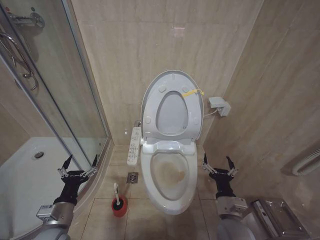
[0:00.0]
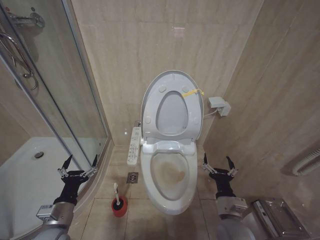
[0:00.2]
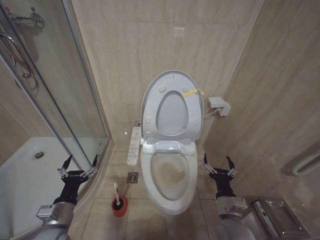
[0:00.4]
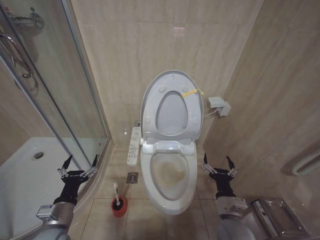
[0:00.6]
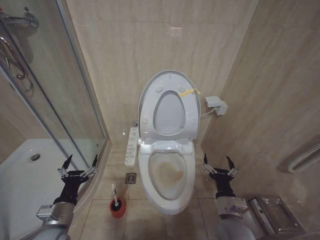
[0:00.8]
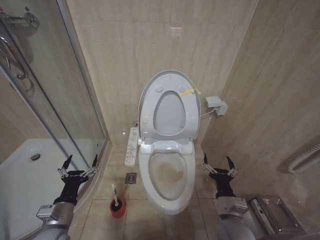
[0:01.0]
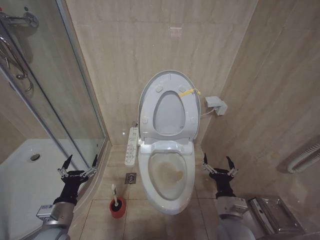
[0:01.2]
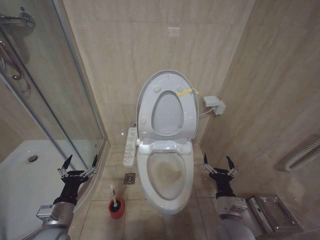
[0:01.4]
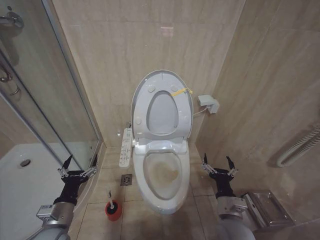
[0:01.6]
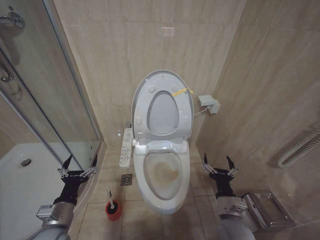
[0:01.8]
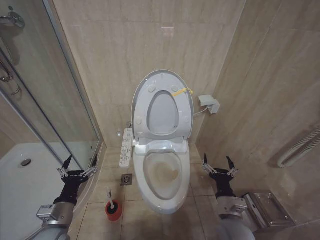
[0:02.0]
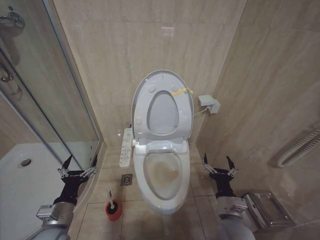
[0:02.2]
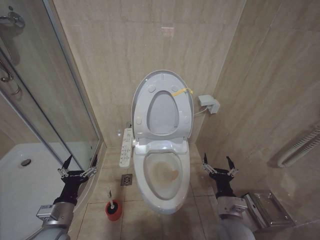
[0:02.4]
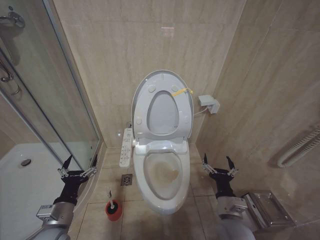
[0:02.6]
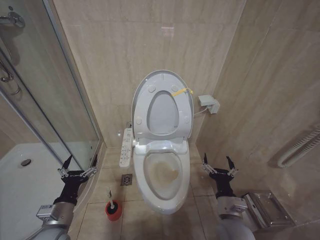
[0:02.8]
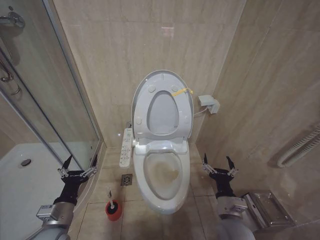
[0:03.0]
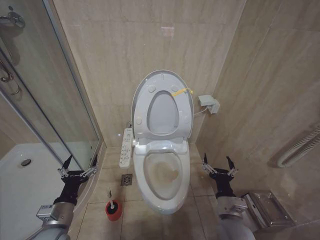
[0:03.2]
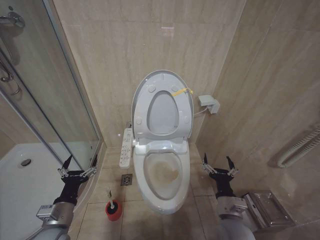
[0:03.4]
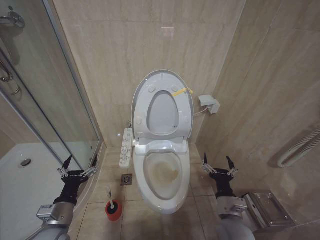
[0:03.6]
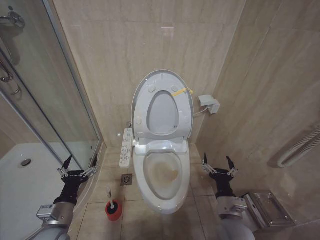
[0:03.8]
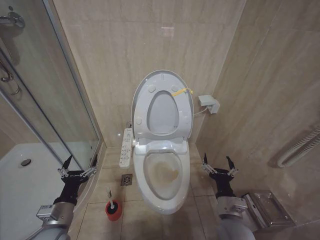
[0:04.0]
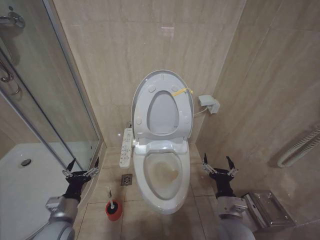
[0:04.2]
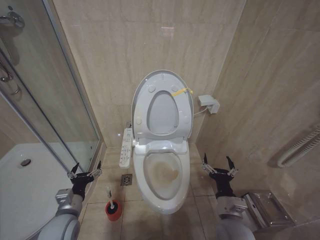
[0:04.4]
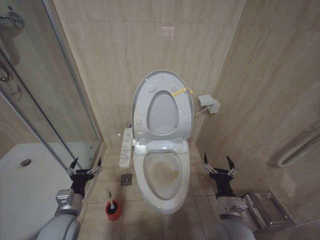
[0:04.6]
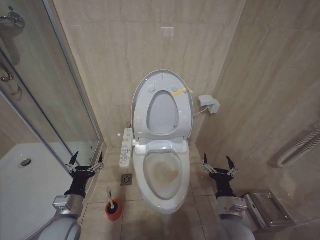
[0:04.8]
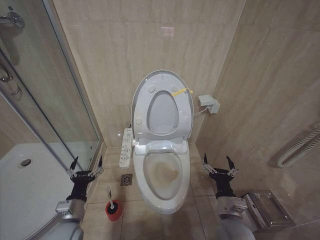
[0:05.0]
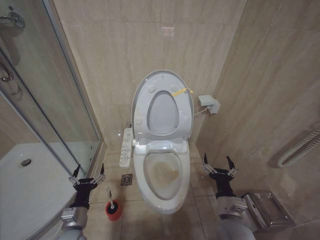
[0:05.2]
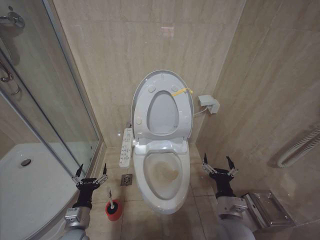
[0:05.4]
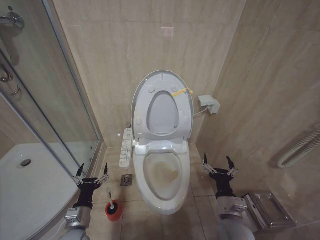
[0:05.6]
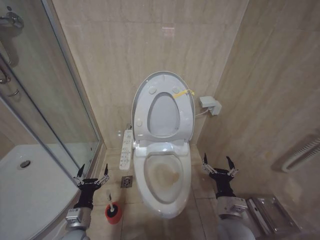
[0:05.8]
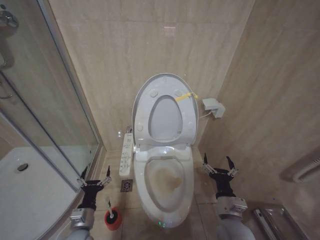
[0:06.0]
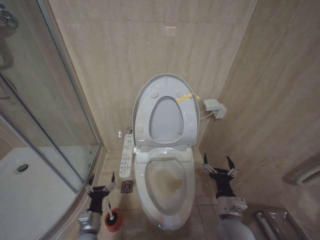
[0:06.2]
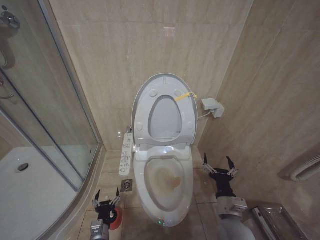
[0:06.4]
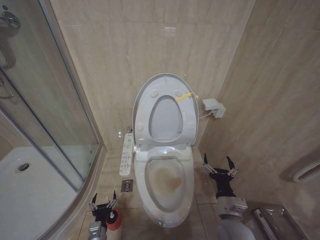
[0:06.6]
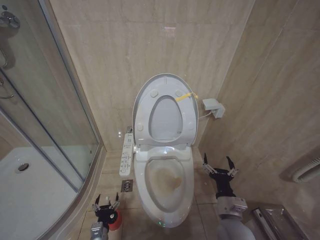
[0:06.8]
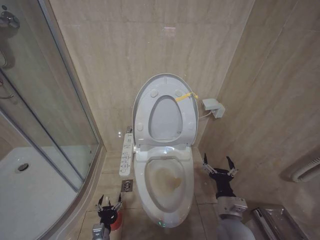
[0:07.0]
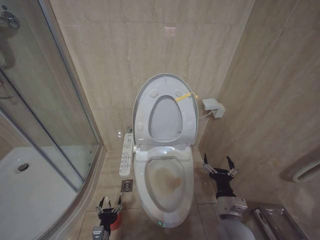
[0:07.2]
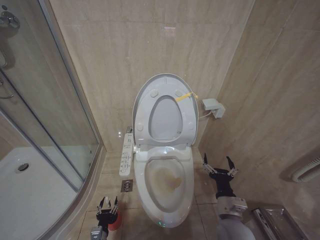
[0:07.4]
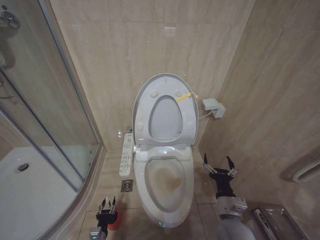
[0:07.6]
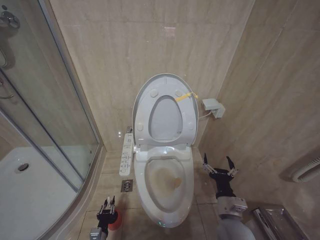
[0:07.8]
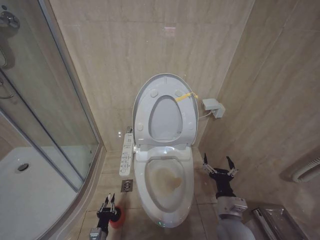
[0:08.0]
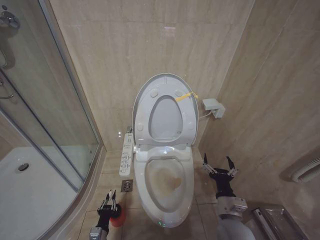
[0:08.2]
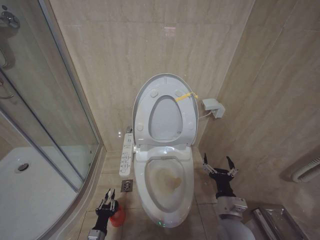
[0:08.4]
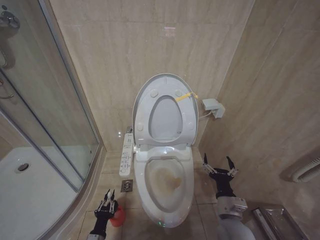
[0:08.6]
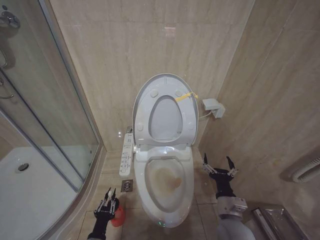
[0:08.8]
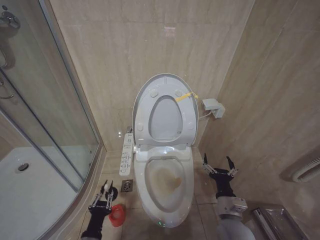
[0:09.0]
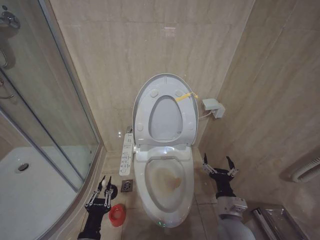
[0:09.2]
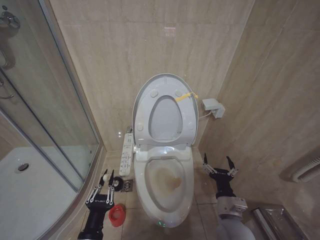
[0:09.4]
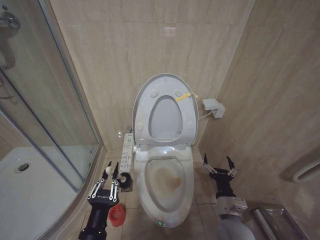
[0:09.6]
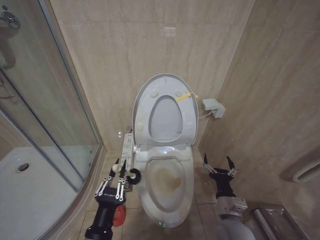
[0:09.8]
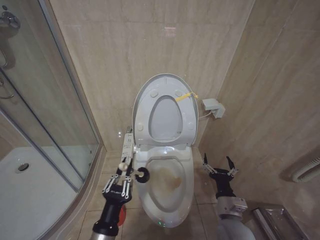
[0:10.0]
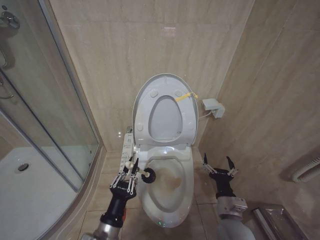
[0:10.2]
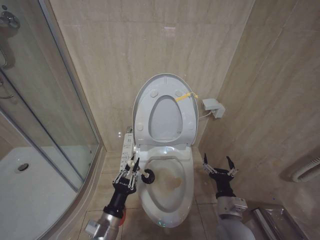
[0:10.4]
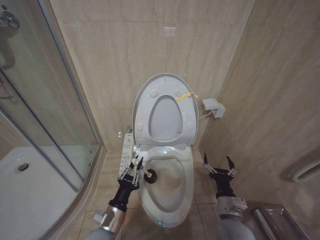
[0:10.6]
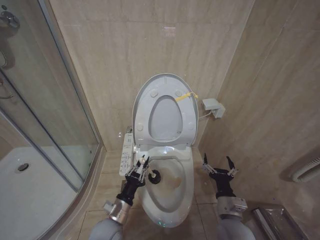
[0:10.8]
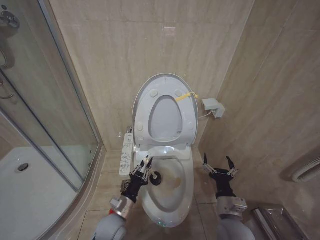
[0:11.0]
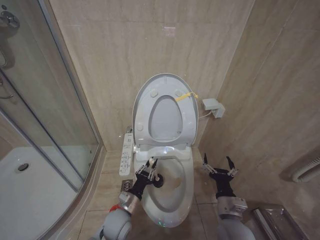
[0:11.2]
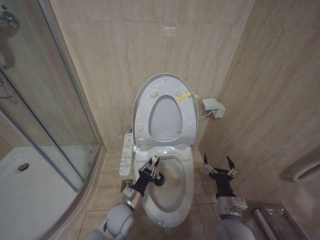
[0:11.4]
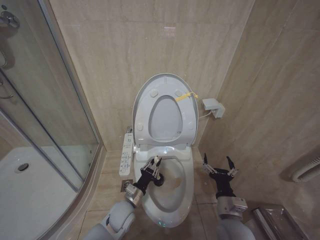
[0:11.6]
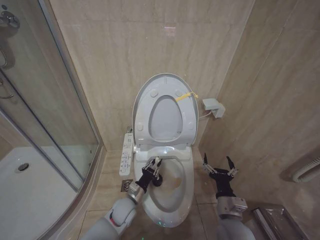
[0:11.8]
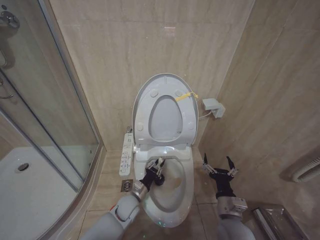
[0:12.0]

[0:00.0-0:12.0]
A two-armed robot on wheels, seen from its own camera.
Task of the whole recording: Open the toilet lid, clean the toilet bowl with a toilet brush, close the toilet lid, and flush.
0:00.0 to 0:03.0: The two grippers keep their place.
0:03.0 to 0:04.4: The grippers move only a little.
0:04.4 to 0:06.0: The left gripper travels downward by about 5 cm.
0:06.0 to 0:07.6: The left gripper is displaced downward by roughly 20 cm.
0:07.6 to 0:09.0: The left gripper moves upward and backward, approximately 15 cm, and closes up.
0:09.0 to 0:10.4: The left gripper is displaced upward and to the right by roughly 10 cm.
0:10.4 to 0:12.0: The left gripper travels forward and downward by approximately 20 cm.

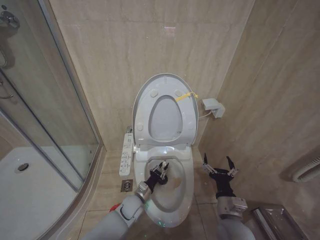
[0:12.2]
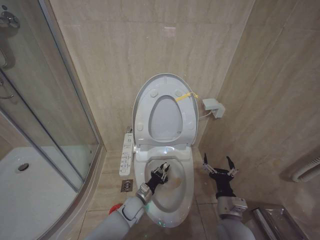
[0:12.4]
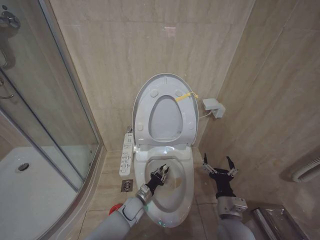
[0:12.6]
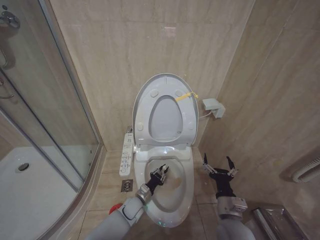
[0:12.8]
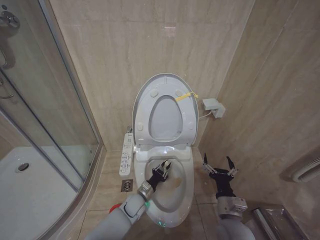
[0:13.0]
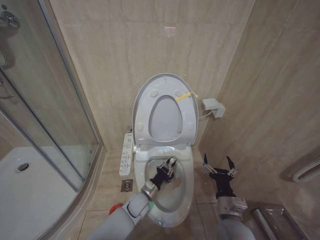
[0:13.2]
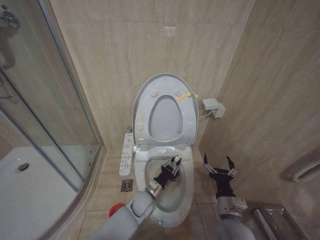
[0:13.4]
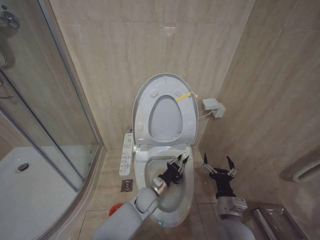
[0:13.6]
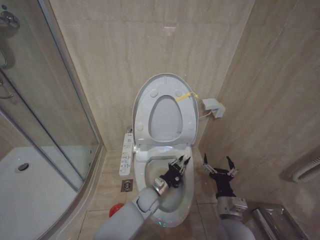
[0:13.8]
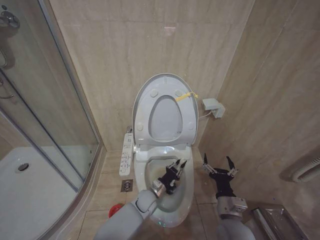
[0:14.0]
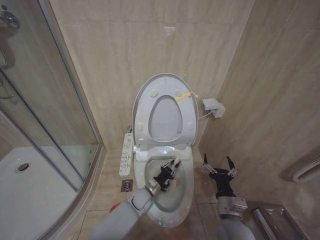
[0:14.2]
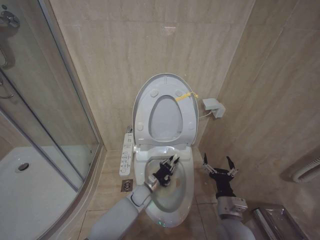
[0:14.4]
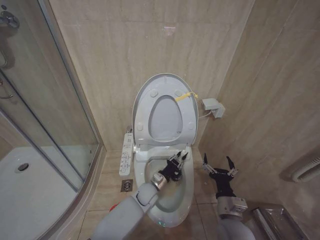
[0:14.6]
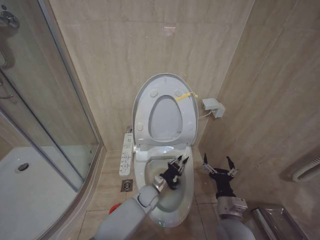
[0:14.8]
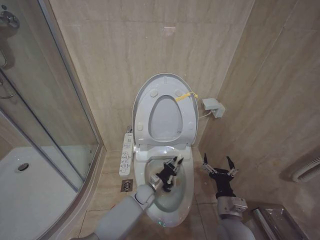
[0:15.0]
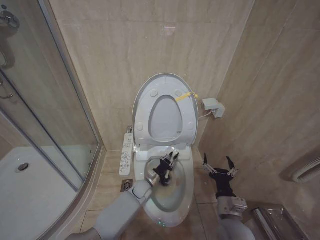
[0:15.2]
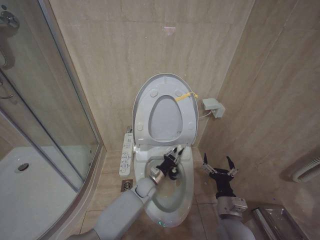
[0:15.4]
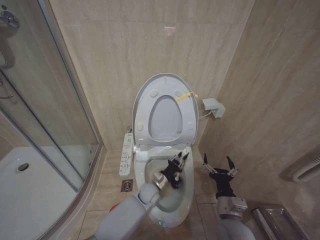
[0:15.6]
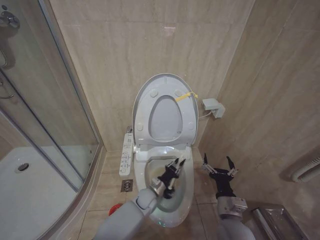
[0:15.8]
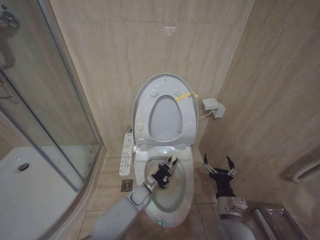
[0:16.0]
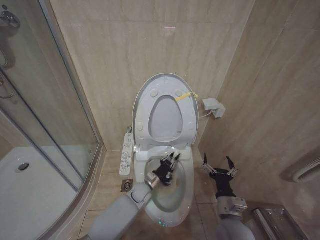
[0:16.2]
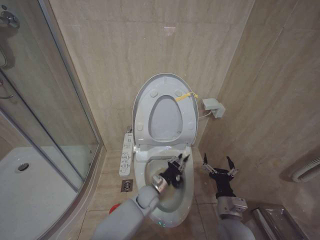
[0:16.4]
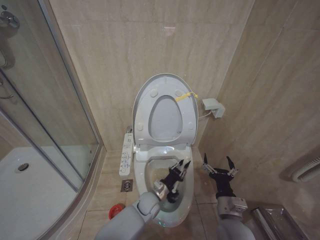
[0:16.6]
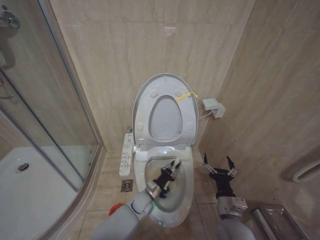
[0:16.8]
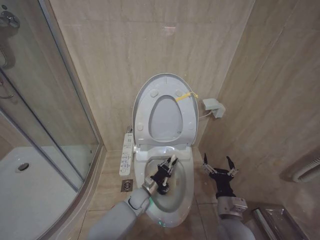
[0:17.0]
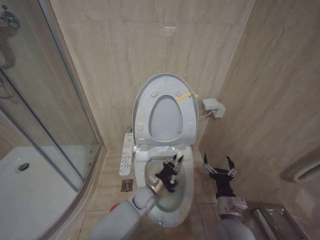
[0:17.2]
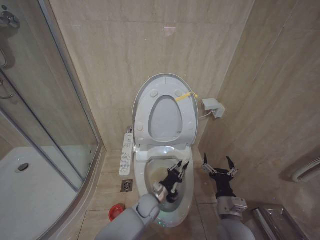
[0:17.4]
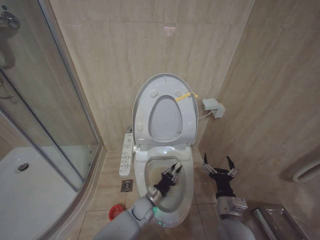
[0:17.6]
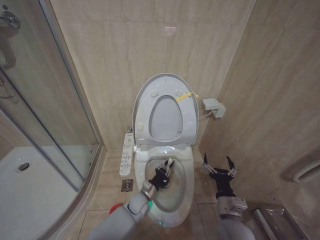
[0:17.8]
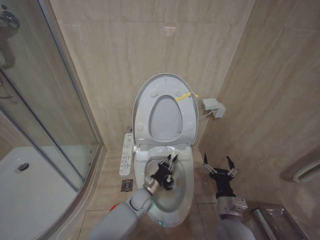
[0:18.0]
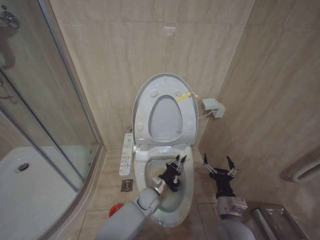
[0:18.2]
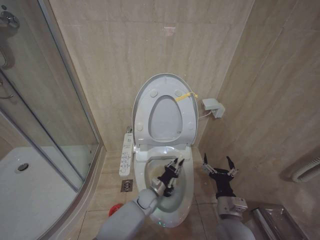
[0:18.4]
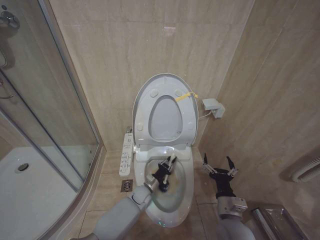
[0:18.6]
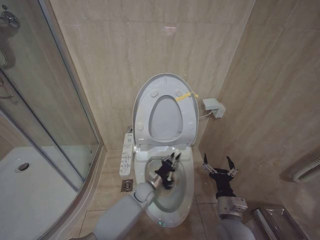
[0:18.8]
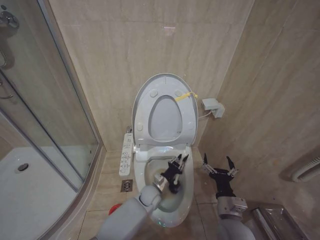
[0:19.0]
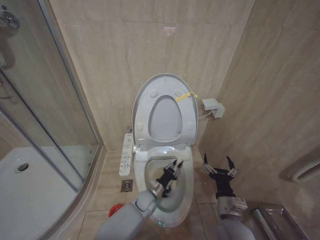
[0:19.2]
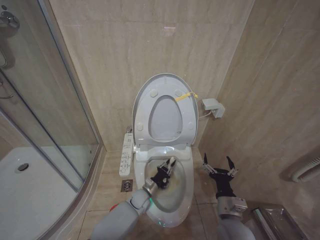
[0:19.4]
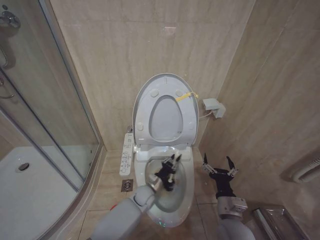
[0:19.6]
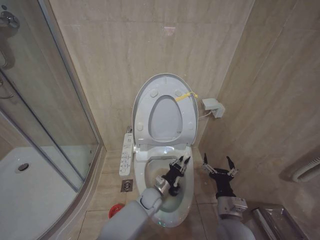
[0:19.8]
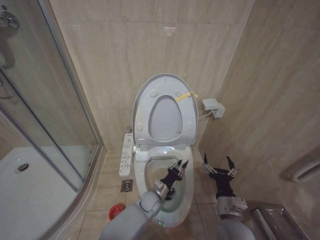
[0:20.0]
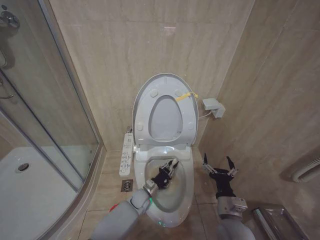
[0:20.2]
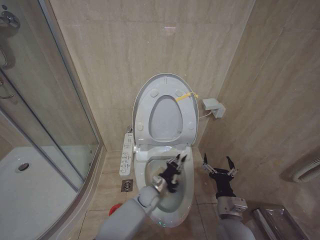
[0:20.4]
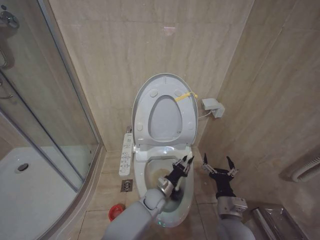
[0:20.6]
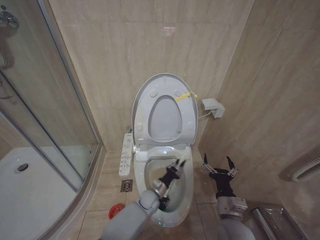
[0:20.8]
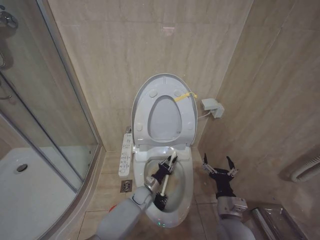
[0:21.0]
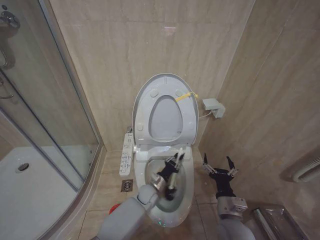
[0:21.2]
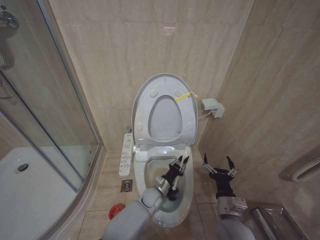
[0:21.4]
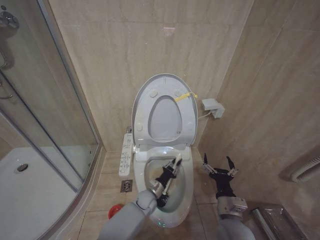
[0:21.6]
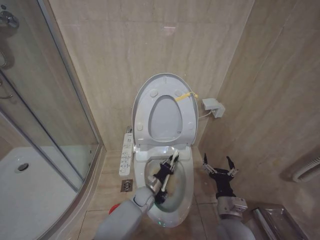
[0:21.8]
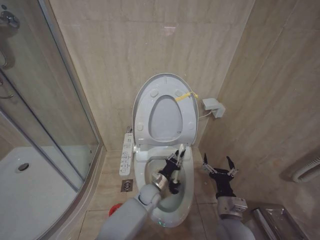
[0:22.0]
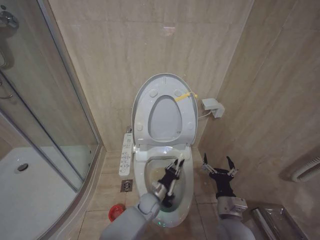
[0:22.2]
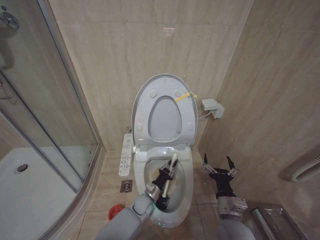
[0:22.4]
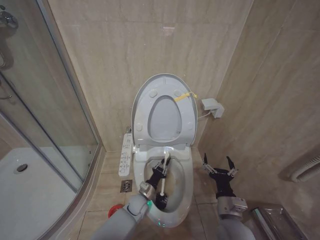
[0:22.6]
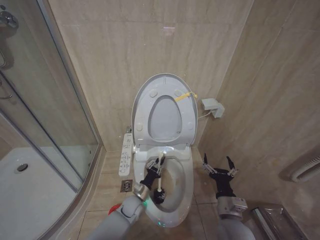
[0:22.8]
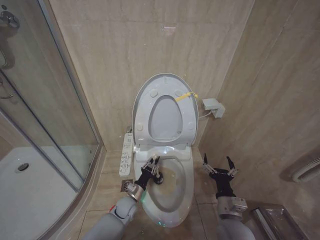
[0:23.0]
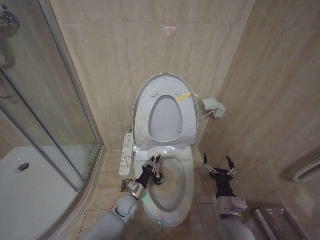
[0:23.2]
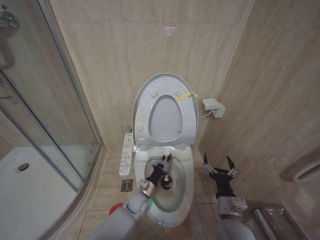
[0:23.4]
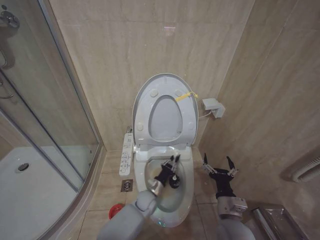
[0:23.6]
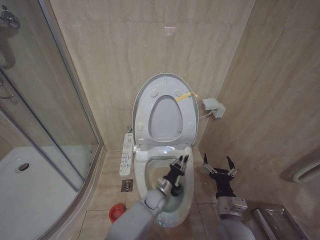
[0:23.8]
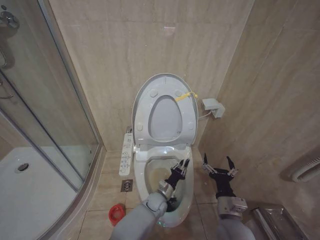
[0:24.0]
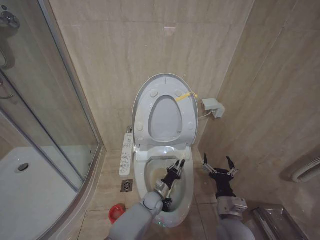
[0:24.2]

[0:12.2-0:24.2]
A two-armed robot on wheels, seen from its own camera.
Task of the whole recording: Open the toilet lid, clean the toilet bowl with a toilet brush, close the toilet lid, and flush.
0:12.2 to 0:13.8: The left gripper shifts about 5 cm to the right.
0:13.8 to 0:15.2: The left gripper goes approximately 5 cm forward.
0:15.2 to 0:16.6: The left gripper moves backward, some 5 cm.
0:18.2 to 0:19.8: The left gripper goes up and down, roughly 5 cm each way, reversing 3 times.
0:19.8 to 0:21.2: The left gripper goes up and down, some 5 cm each way, reversing 2 times.
0:21.2 to 0:22.6: The left gripper changes place by roughly 5 cm.
0:22.6 to 0:24.2: The left gripper is displaced to the right by approximately 5 cm.
